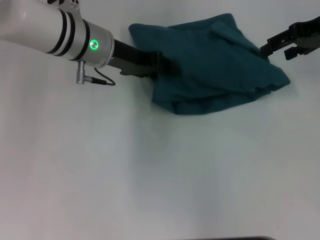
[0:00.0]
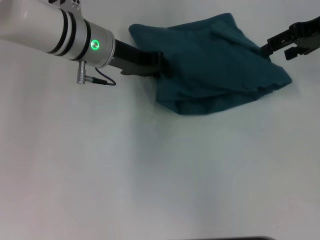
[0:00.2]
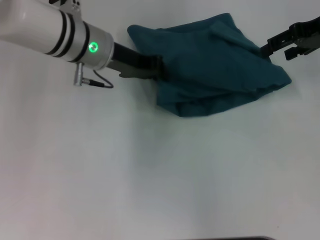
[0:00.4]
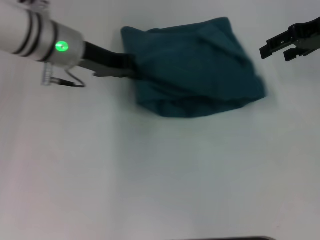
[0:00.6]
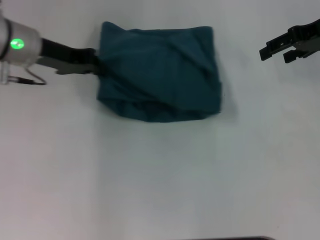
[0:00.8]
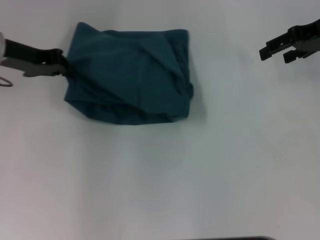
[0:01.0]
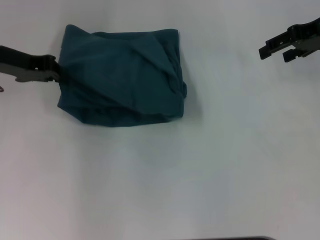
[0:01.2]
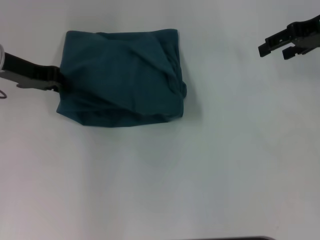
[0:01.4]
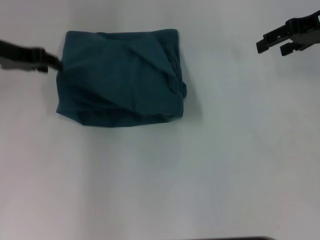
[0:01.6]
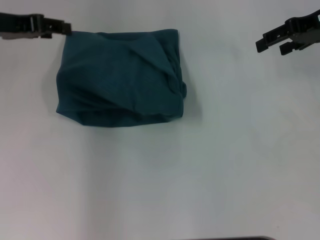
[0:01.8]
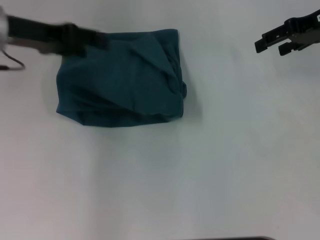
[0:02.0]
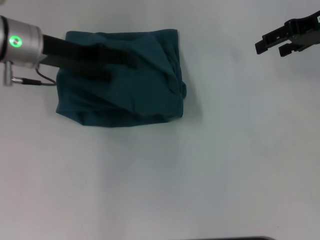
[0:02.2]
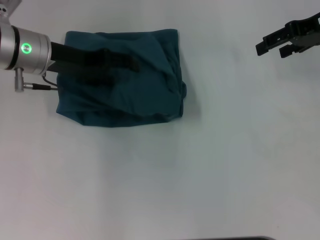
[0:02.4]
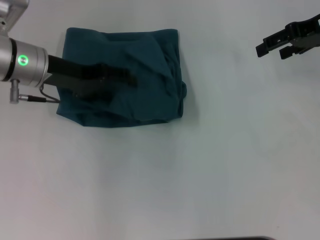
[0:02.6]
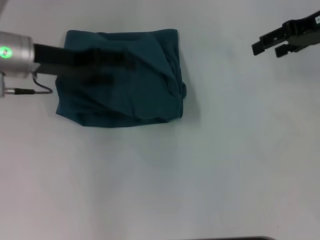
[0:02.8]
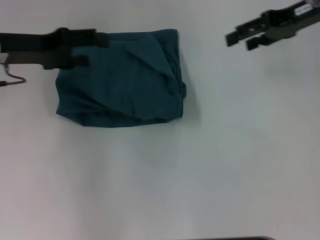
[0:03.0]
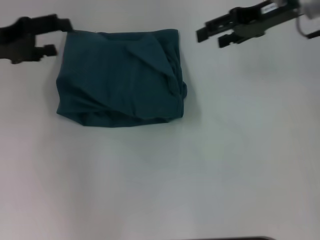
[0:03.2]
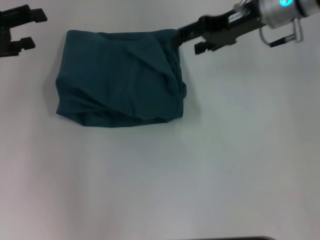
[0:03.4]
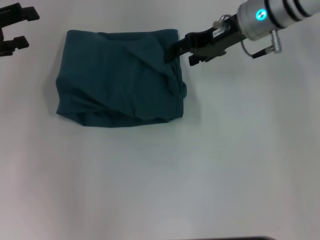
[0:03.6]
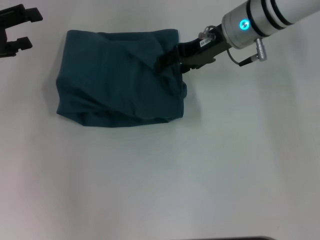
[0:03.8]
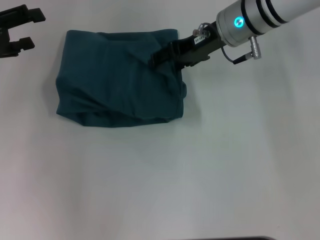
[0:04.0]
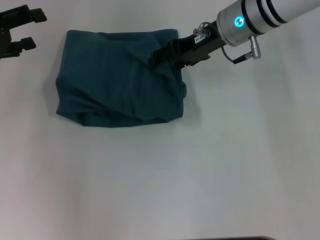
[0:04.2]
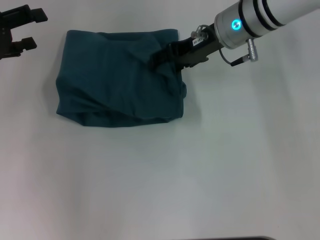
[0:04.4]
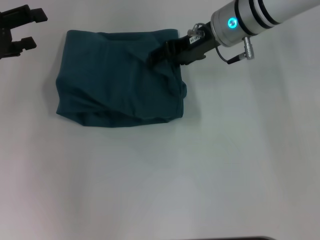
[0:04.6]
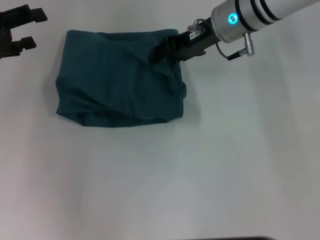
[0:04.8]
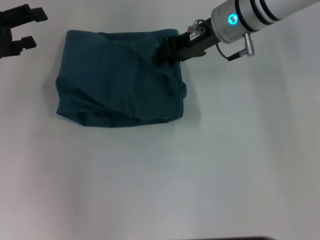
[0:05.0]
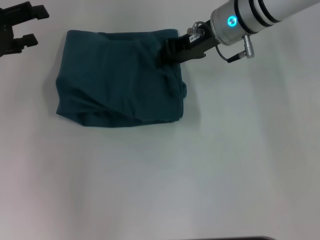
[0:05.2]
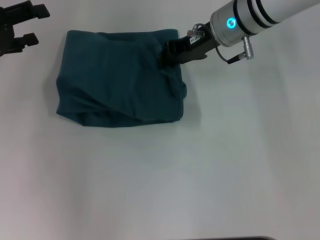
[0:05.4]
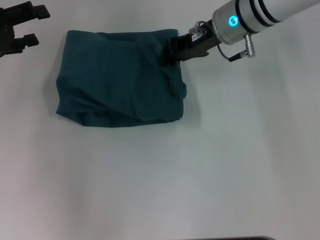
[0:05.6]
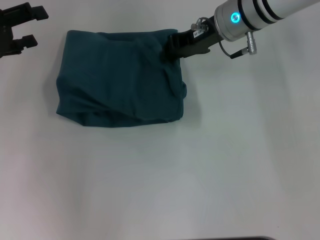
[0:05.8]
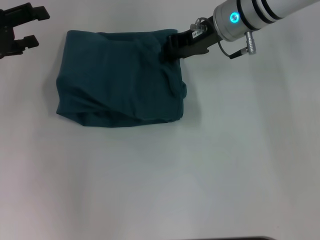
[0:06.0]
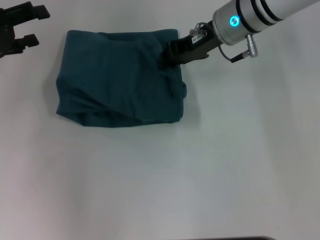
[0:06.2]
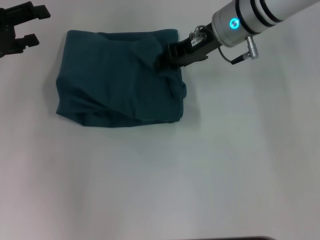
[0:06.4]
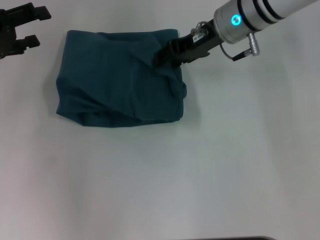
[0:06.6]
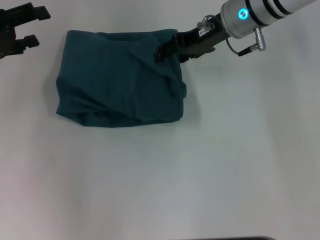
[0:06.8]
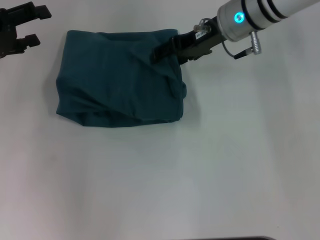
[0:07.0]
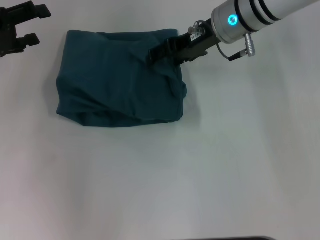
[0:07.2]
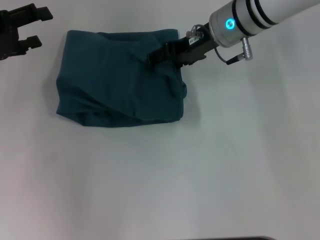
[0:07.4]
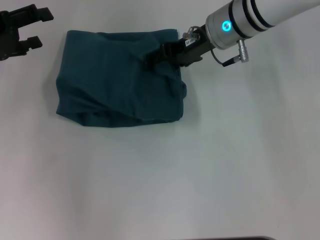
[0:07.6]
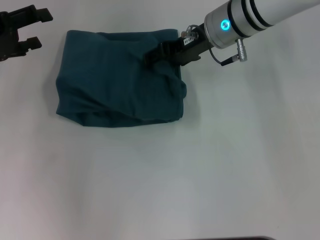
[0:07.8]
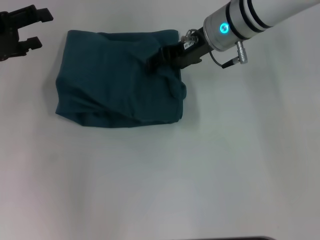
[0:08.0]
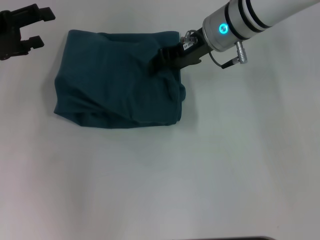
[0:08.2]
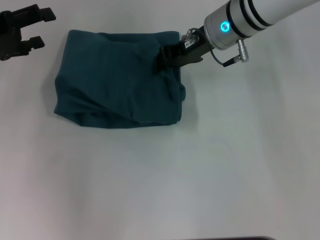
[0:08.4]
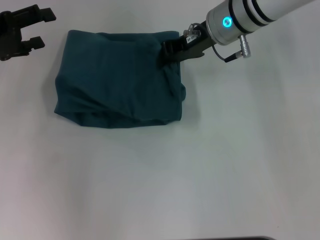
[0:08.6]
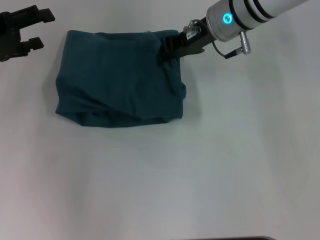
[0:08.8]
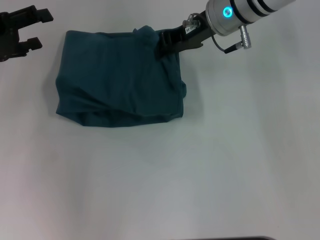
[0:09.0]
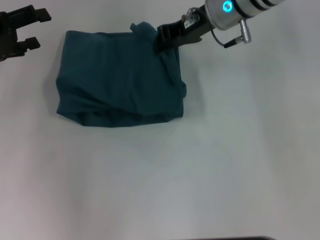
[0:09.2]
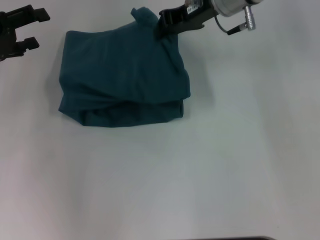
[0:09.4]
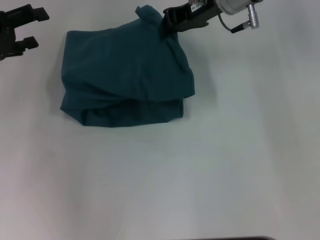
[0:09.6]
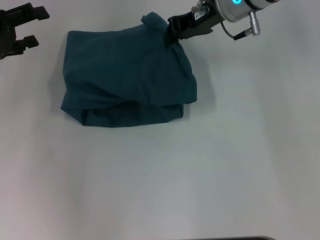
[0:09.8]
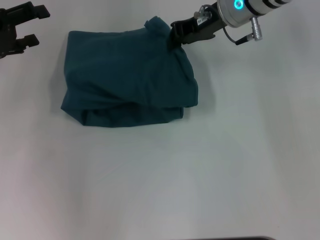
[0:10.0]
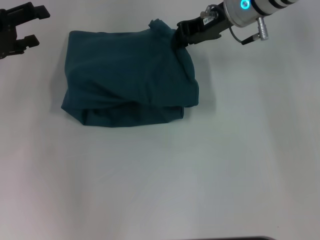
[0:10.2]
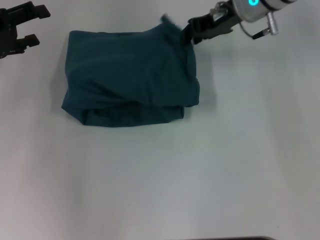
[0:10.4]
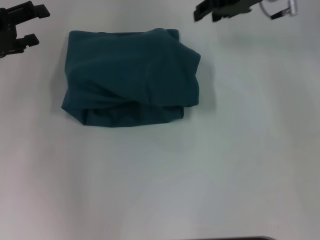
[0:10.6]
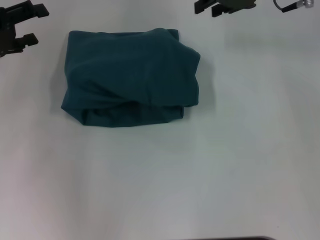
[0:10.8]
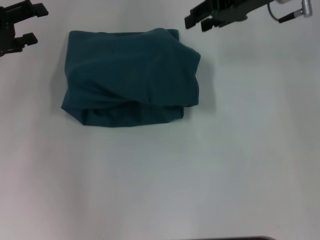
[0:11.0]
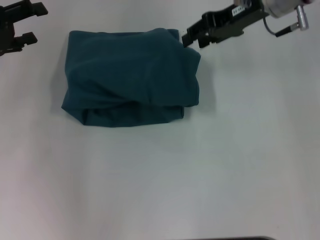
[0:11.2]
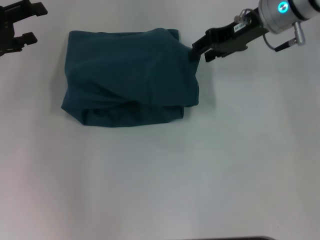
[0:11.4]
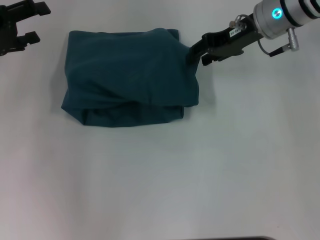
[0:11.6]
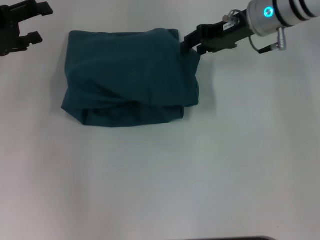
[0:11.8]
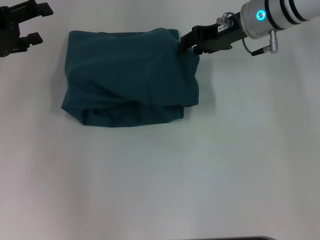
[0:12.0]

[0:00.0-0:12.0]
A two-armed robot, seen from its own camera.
0:00.0 to 0:01.6: The left gripper shifts about 15 cm to the left, and closes its fingers.
0:01.6 to 0:03.0: The left gripper opens.
0:03.0 to 0:04.4: The right gripper shifts approximately 15 cm to the left and downward; the left gripper moves to the left, roughly 5 cm.
0:04.4 to 0:06.0: The right gripper closes.
0:06.0 to 0:07.6: The right gripper opens.
0:07.6 to 0:09.0: The right gripper closes up.
0:09.0 to 0:10.4: The grippers move only a little.
0:10.4 to 0:12.0: The right gripper opens its fingers.

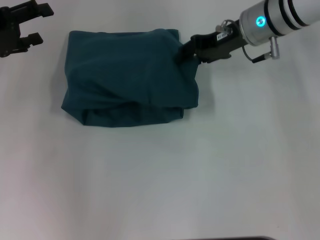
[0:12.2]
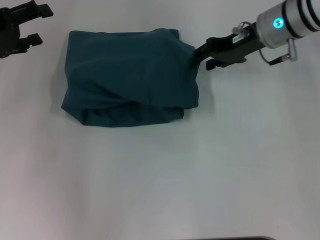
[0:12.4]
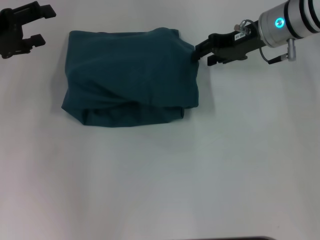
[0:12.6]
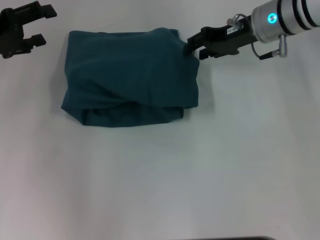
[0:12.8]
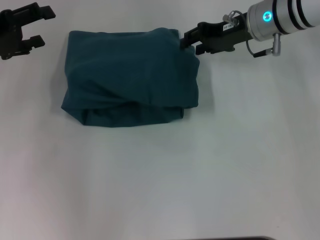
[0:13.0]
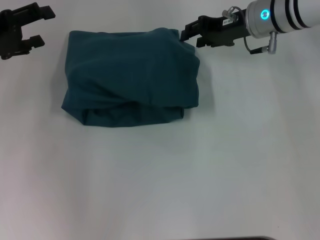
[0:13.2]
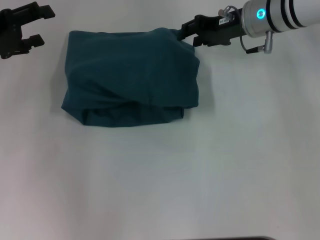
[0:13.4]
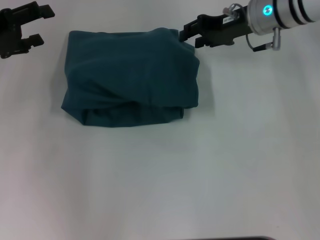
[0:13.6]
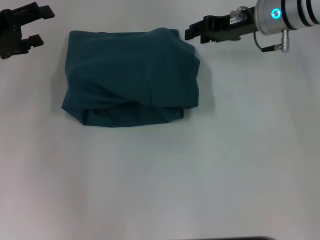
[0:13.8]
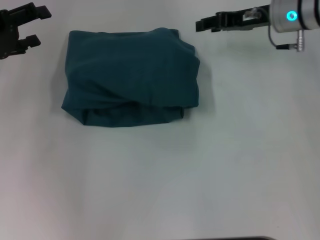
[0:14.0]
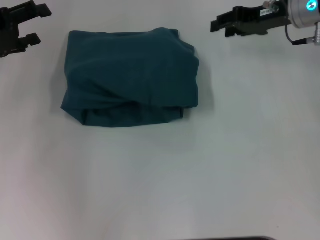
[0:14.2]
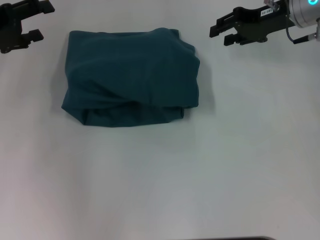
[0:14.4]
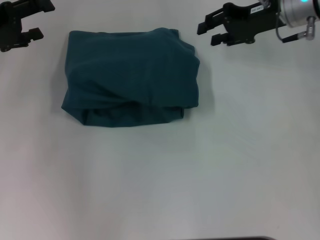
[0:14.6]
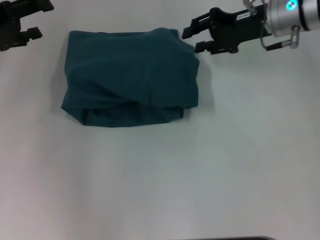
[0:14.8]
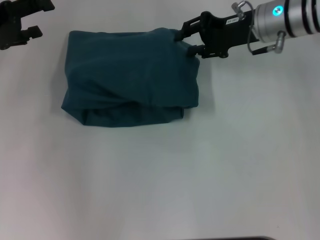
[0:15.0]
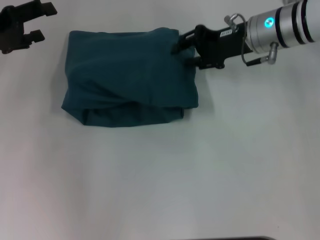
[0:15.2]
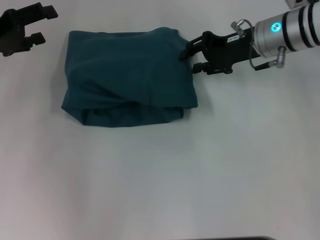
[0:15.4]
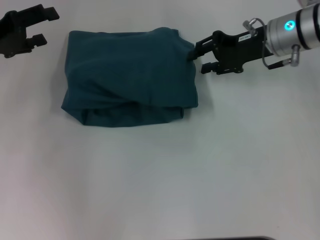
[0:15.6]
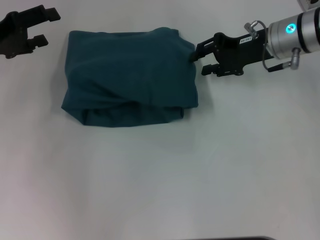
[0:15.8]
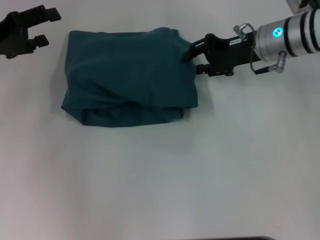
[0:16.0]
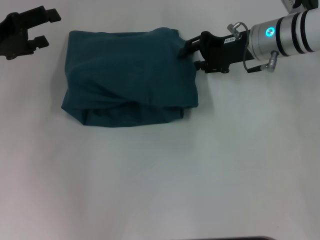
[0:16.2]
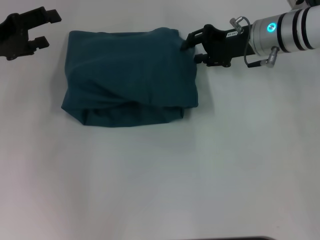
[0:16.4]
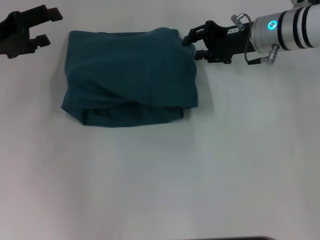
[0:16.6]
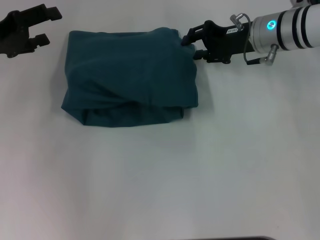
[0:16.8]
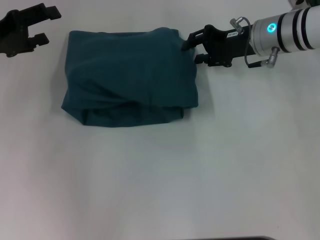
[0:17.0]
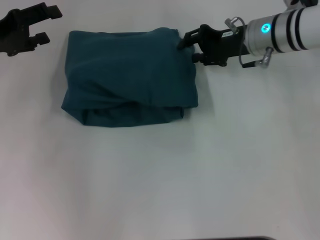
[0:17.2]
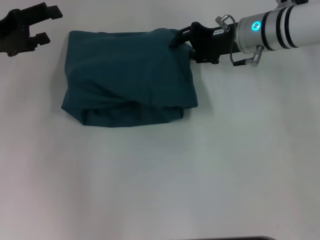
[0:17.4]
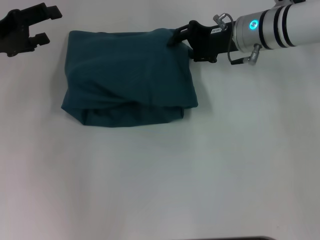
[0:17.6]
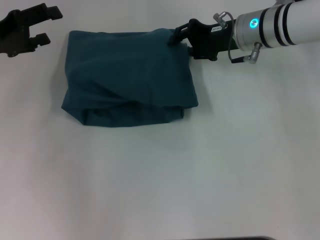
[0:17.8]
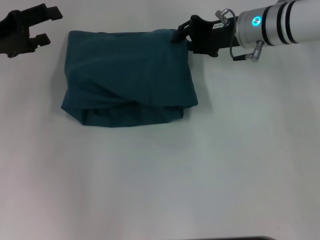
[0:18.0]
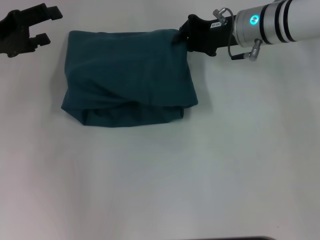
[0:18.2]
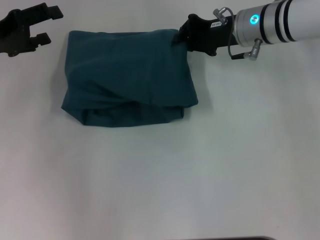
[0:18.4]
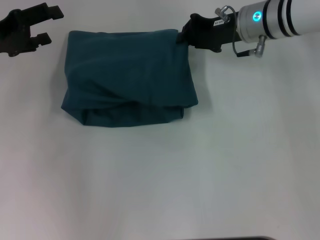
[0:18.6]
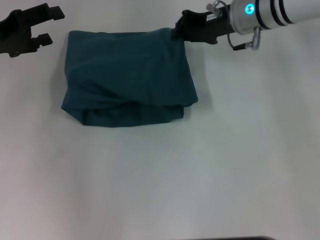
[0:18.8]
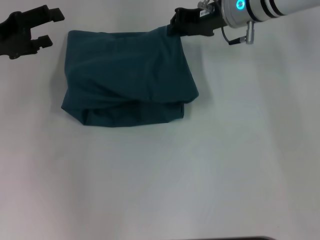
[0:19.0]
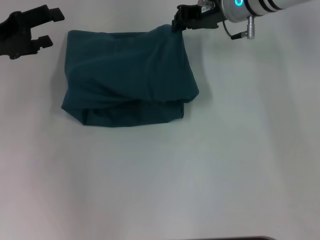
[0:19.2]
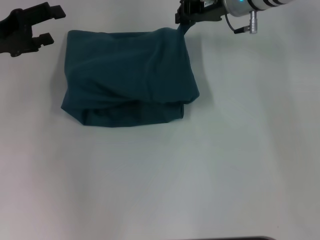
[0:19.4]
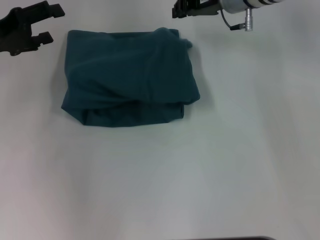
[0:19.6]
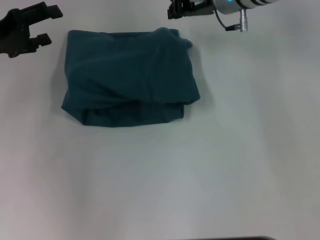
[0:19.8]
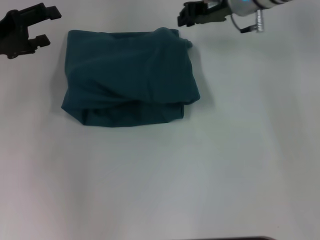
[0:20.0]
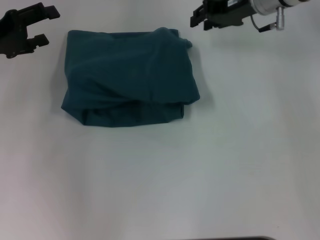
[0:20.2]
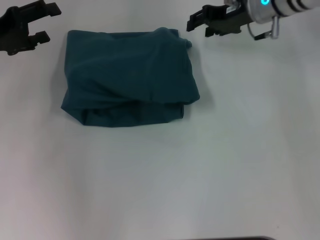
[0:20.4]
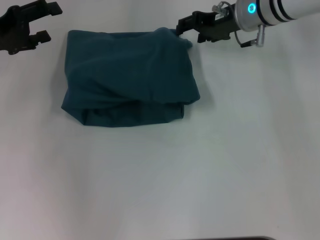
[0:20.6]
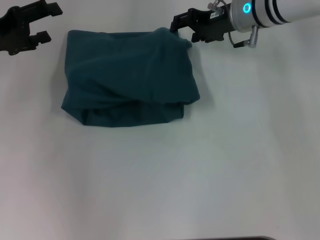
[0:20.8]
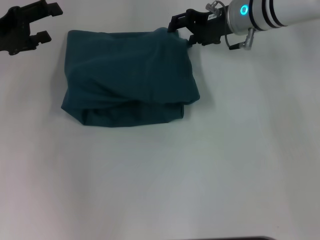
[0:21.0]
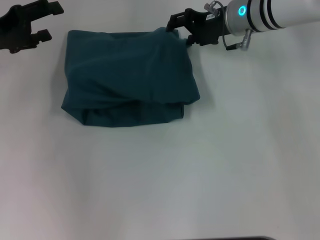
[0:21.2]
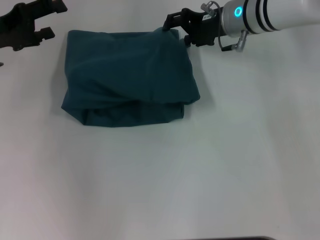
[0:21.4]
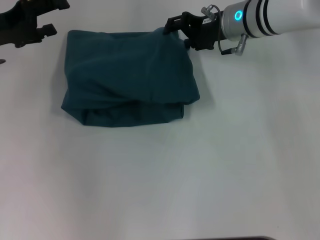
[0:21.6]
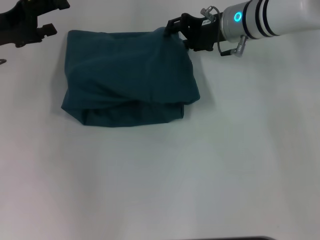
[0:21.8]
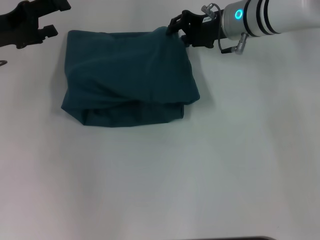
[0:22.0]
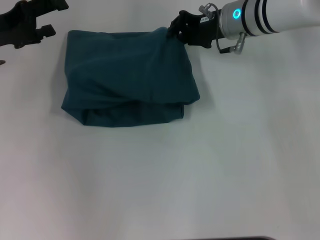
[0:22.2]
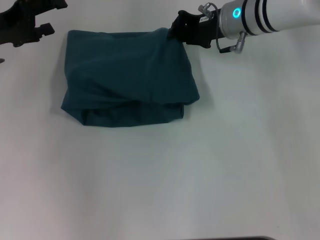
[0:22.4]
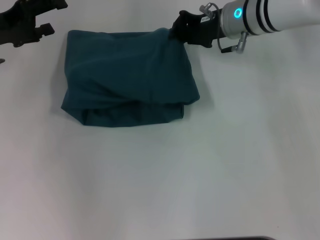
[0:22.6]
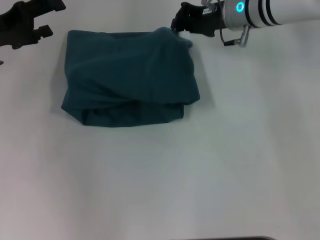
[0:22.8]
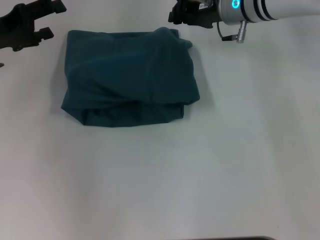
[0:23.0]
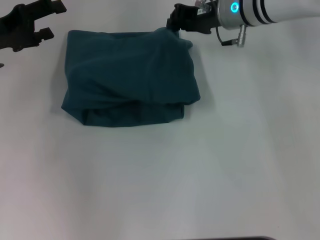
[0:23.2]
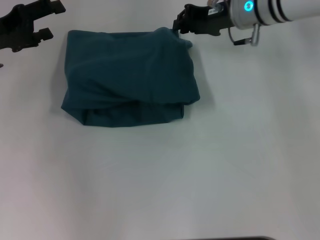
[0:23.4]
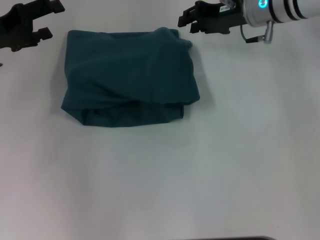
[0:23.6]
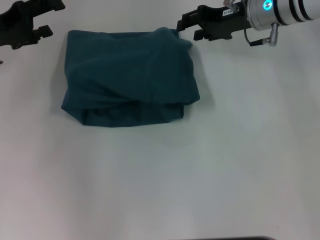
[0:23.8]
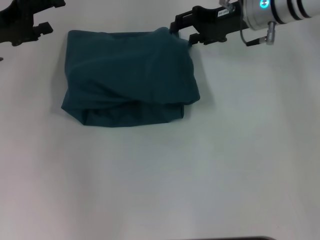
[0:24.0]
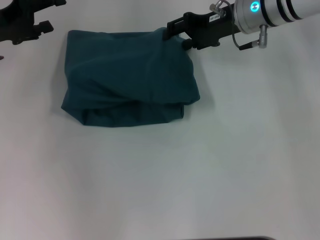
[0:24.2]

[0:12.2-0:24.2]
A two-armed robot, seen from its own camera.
0:12.2 to 0:13.8: The grippers make only small movements.
0:15.2 to 0:18.2: The grippers make only small movements.
0:18.2 to 0:19.8: The right gripper shifts by approximately 5 cm.
0:19.8 to 0:21.2: The right gripper opens its fingers.
0:21.2 to 0:22.6: The right gripper closes.
0:22.6 to 0:24.2: The right gripper opens up.
